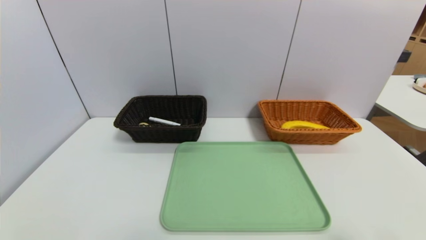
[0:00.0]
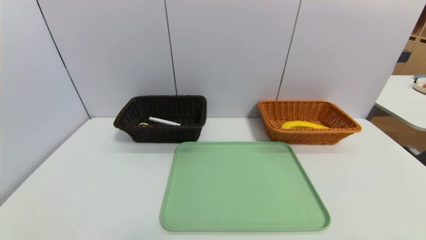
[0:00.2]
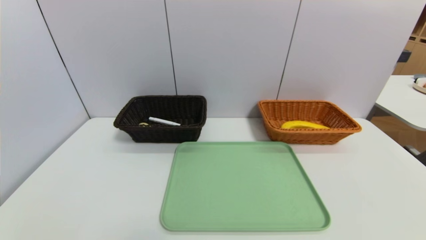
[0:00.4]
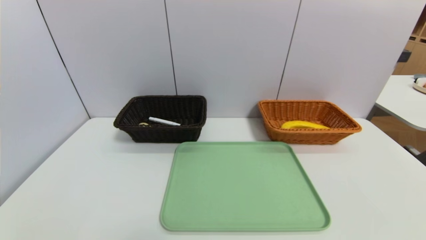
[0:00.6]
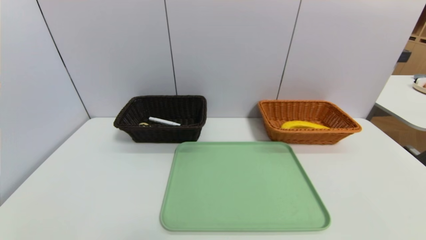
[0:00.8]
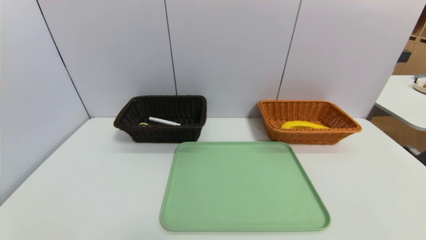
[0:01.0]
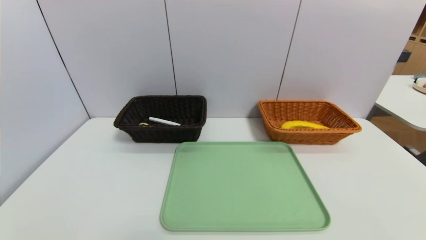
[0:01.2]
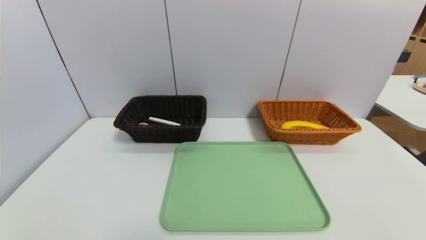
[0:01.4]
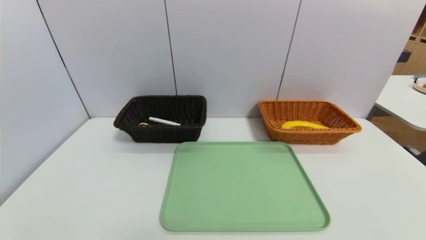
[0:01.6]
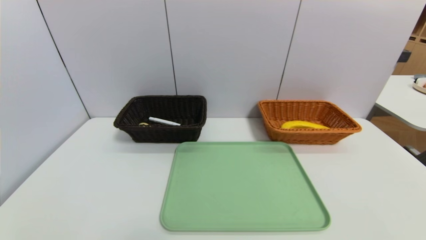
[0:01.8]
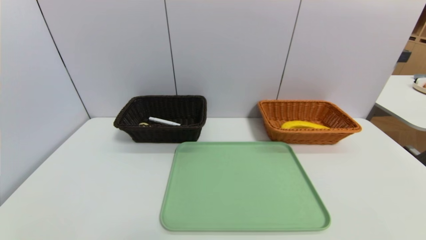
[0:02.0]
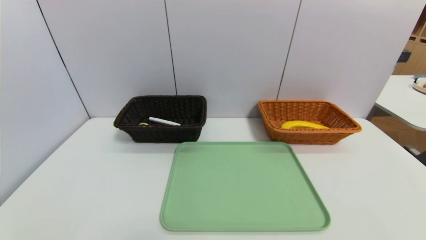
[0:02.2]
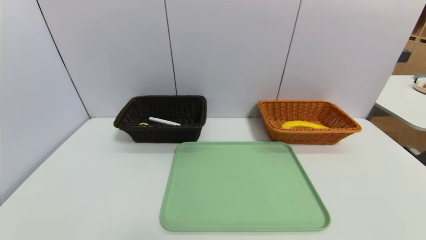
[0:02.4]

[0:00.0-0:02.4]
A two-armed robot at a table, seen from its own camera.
Task of the whole recording: place the food in the right basket with the right gripper, and place the non food items in the left basket with the left gripper.
0:01.2 to 0:02.4: The two grippers keep their place.

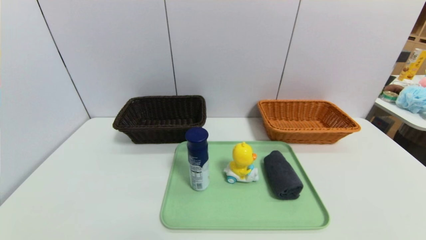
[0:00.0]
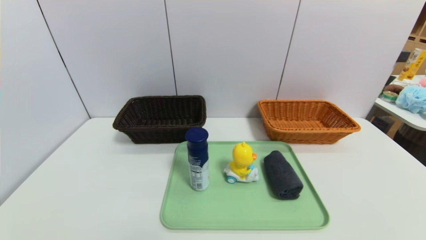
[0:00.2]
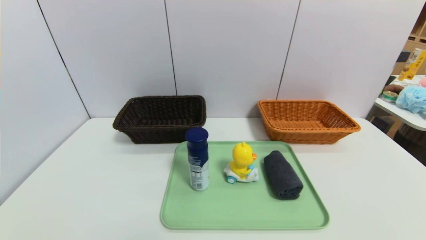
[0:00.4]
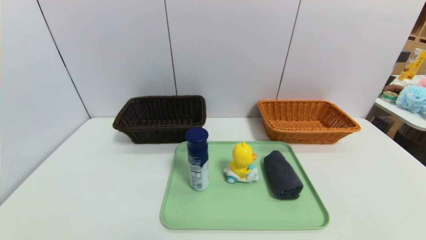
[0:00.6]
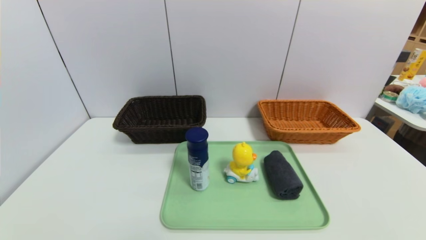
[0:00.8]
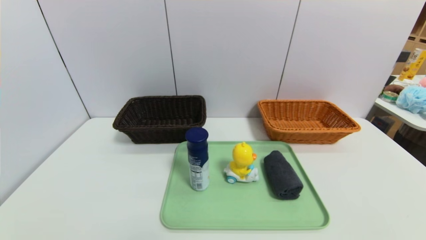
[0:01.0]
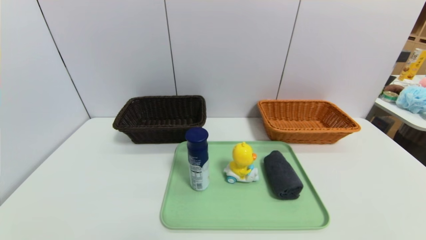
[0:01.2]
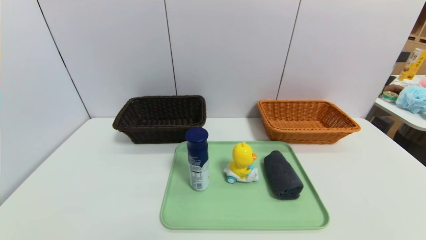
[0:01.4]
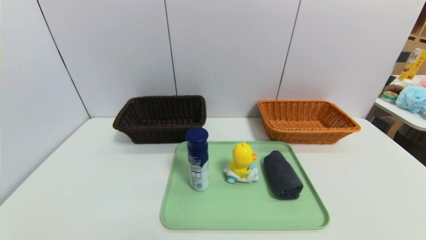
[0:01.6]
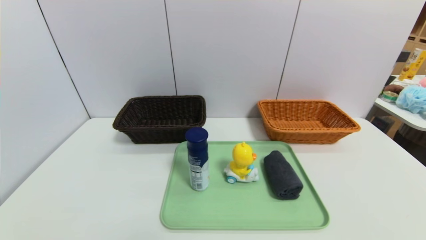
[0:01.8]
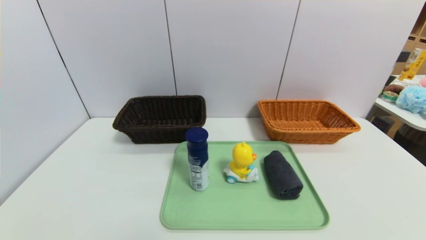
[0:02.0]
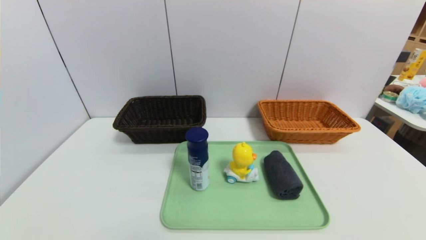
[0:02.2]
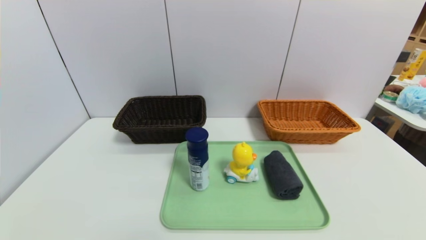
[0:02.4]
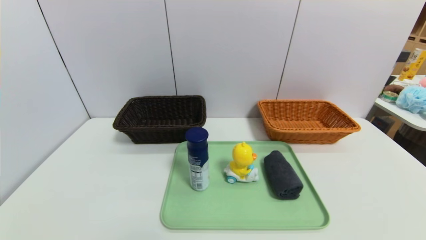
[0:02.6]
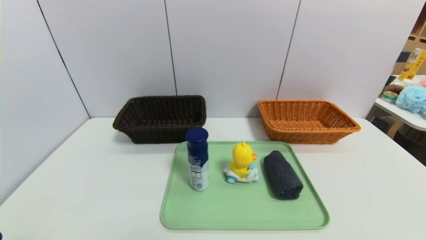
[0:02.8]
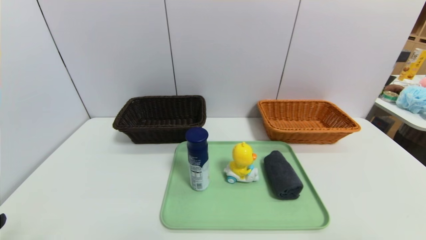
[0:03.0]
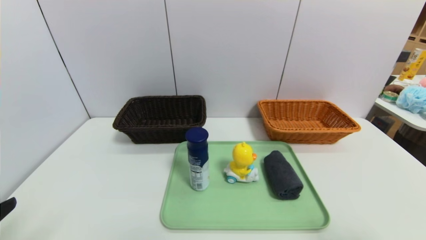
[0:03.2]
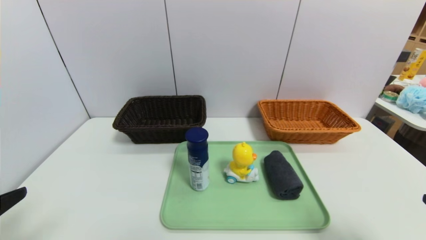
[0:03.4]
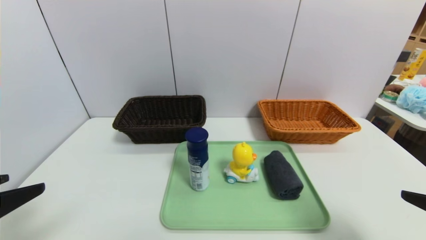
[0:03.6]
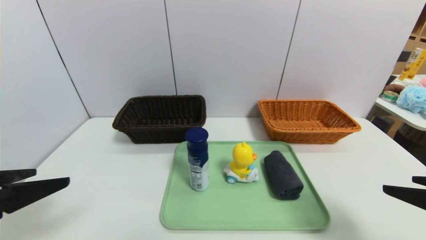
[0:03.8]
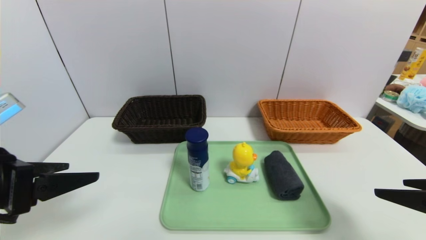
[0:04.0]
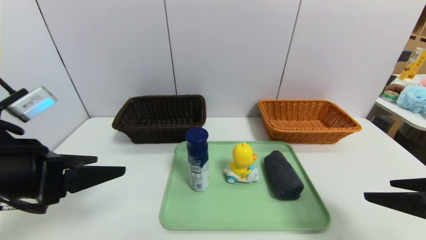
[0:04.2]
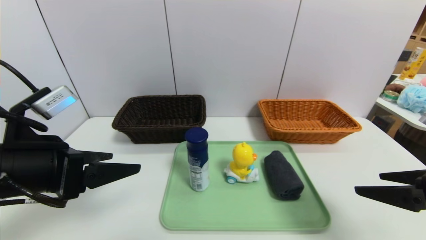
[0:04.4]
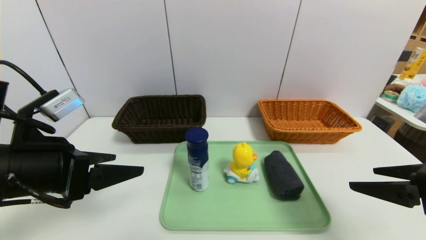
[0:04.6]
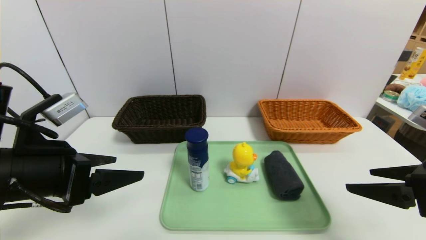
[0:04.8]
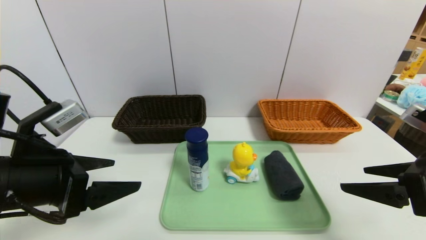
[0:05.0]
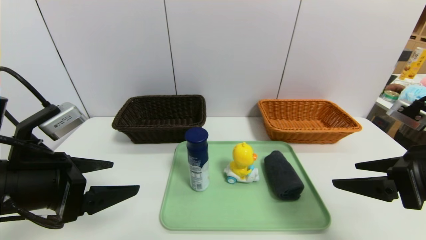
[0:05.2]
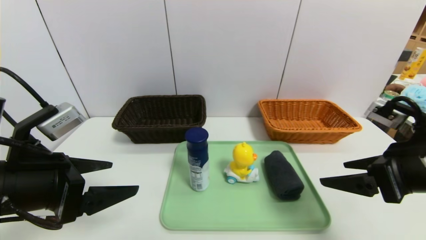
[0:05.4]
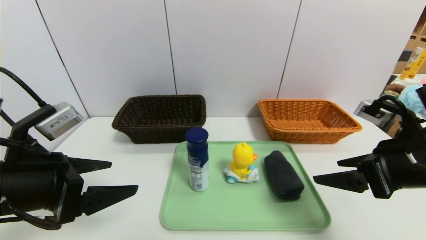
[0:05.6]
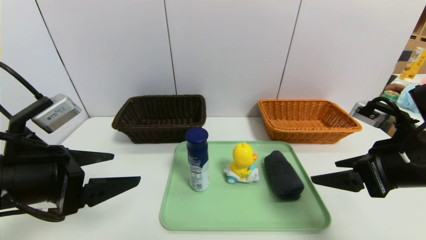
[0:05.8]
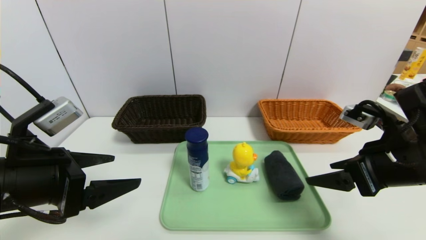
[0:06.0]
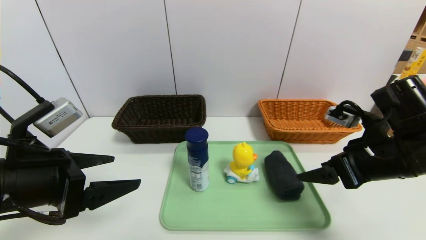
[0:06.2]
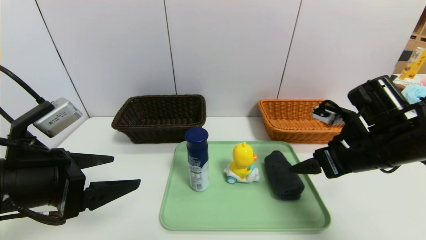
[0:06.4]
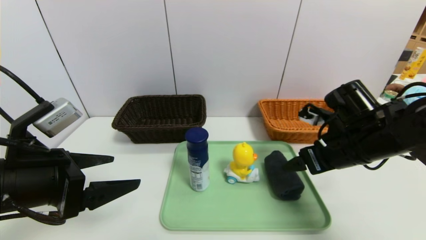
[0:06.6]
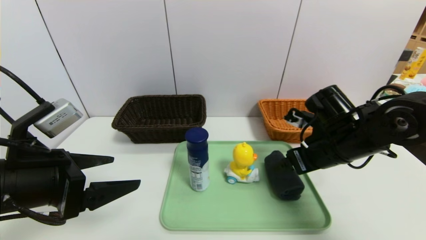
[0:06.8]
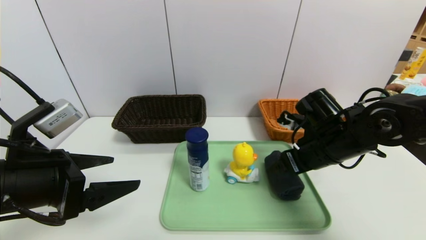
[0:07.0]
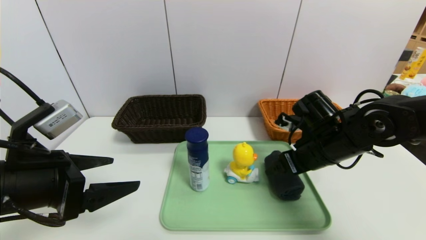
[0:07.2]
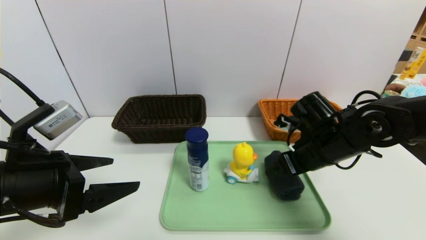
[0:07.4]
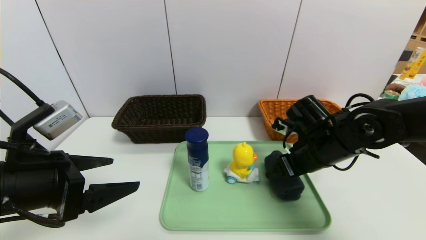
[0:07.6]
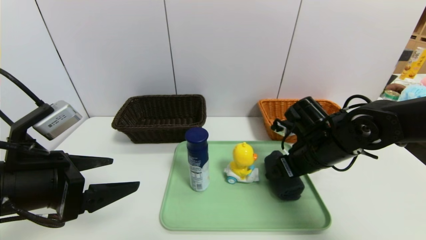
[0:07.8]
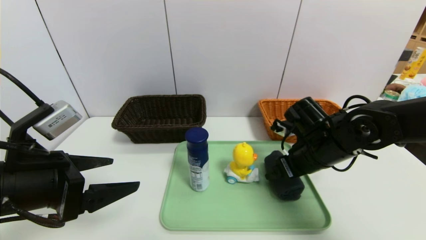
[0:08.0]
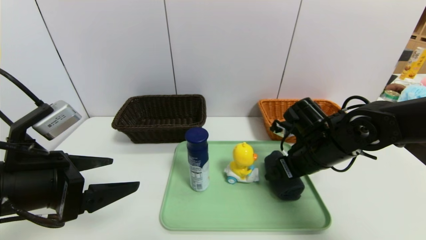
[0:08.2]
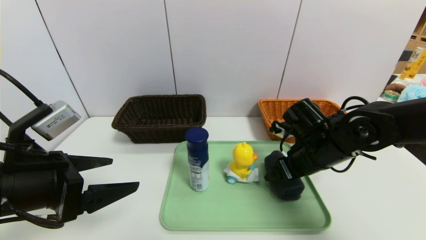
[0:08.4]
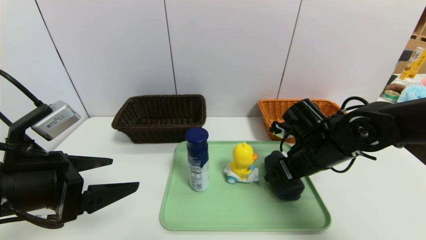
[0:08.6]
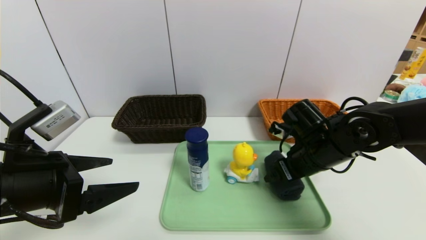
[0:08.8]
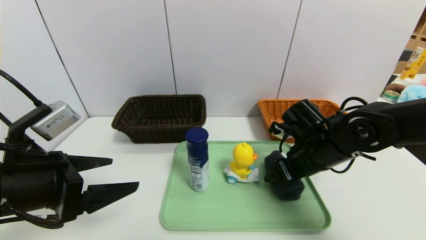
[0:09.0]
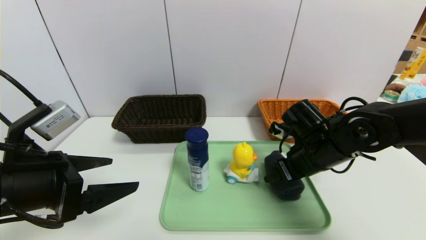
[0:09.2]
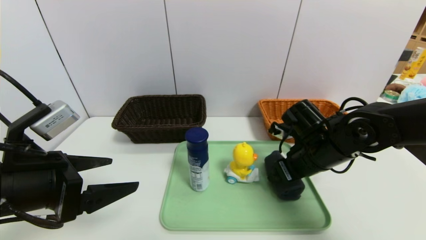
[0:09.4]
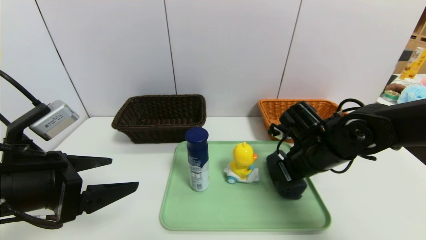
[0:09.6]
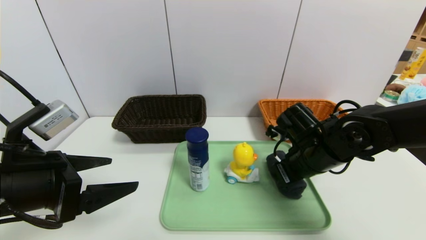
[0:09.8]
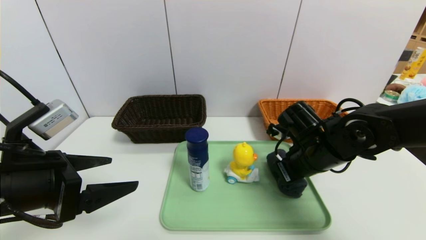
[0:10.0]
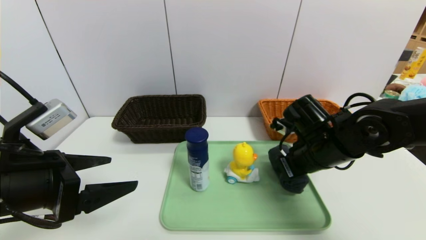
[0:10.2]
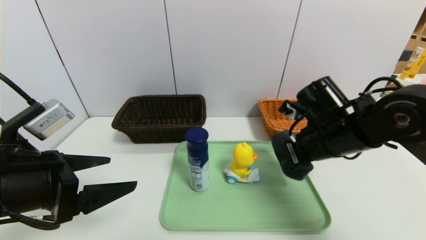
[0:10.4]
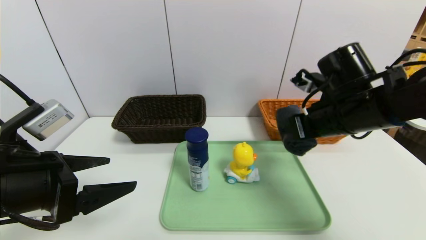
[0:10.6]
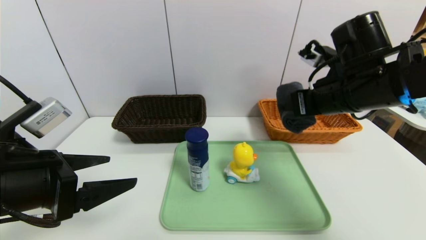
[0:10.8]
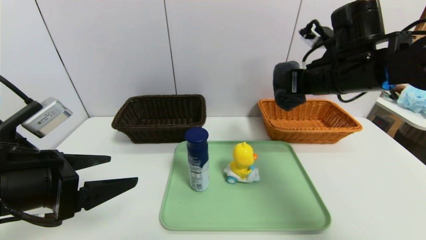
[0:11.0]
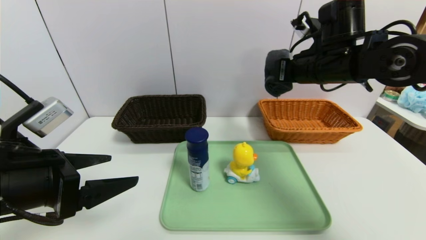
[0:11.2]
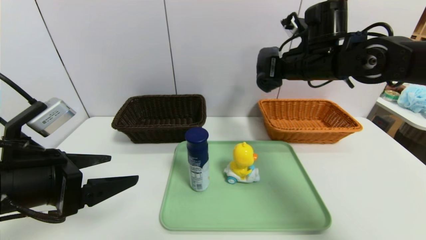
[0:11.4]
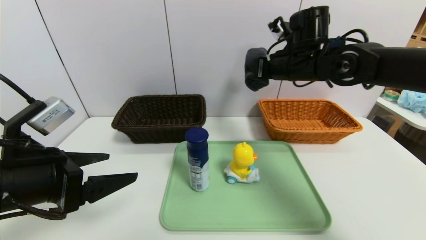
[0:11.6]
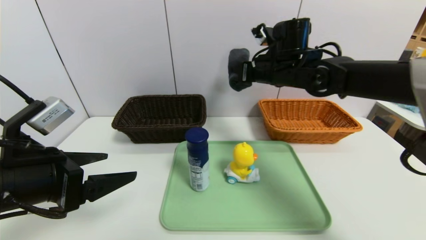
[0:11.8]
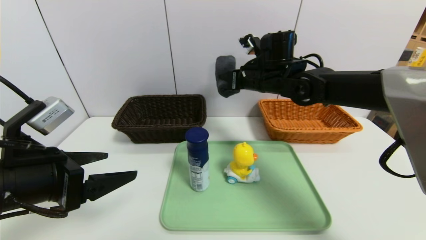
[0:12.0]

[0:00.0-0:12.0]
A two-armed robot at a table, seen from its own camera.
Task of the whole recording: place the food in the right basket with the right gripper, and place the non food items in the left basket with the left gripper.
0:03.0 to 0:04.4: The right gripper moves forward, approximately 10 cm; the left gripper heads forward and to the right, covering about 15 cm, and opens up.
0:04.4 to 0:06.0: The right gripper goes about 5 cm forward.
0:06.0 to 0:07.6: The right gripper goes about 15 cm forward, to the left and downward.
0:07.6 to 0:09.0: Both grippers stay put.
0:09.0 to 0:10.4: The right gripper shifts approximately 5 cm upward, and closes up.
0:10.4 to 0:12.0: The right gripper shifts approximately 15 cm forward and to the left.

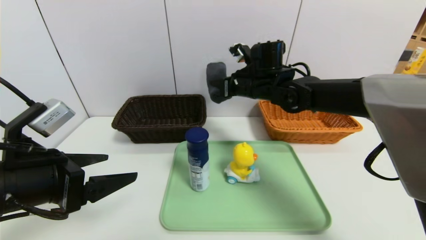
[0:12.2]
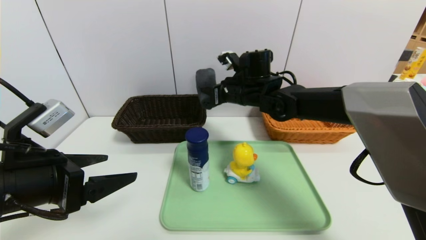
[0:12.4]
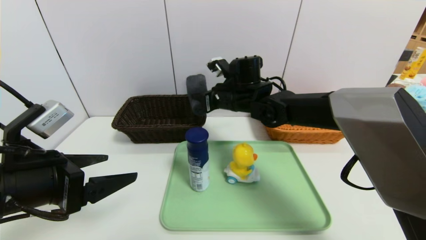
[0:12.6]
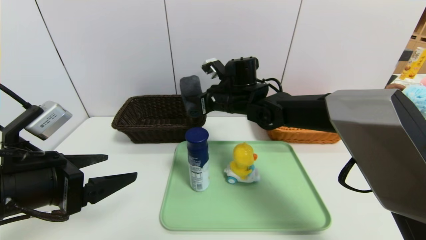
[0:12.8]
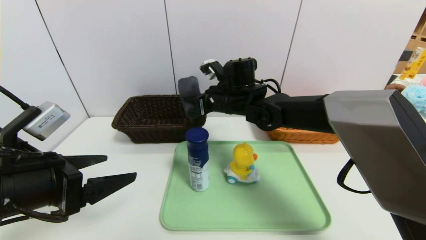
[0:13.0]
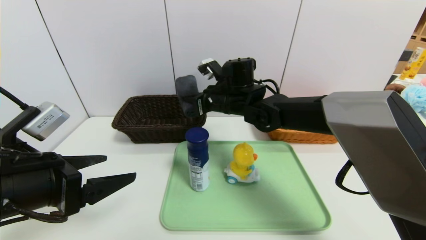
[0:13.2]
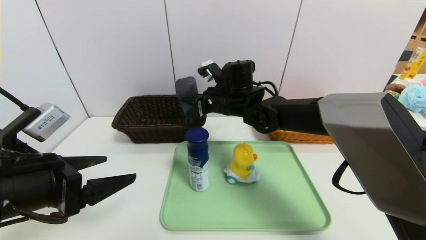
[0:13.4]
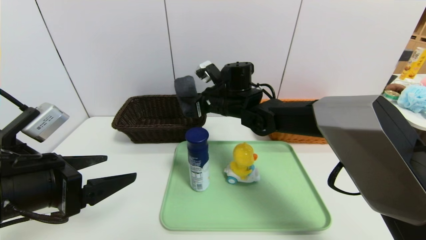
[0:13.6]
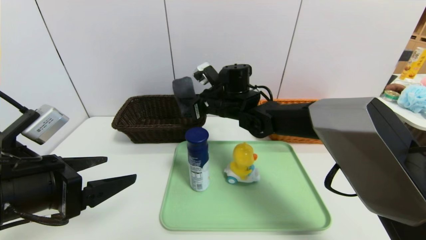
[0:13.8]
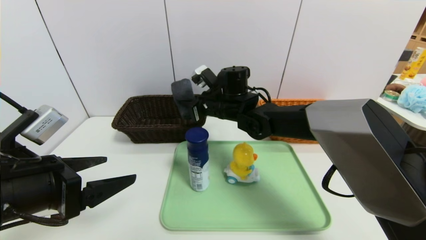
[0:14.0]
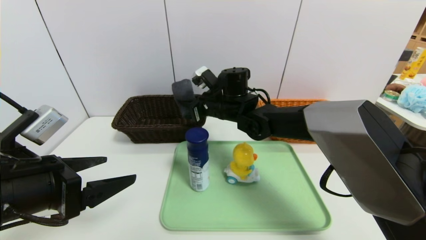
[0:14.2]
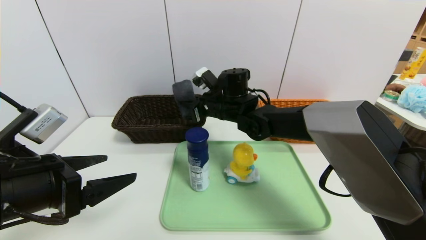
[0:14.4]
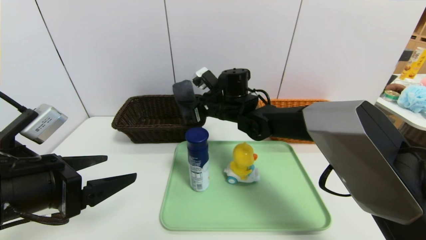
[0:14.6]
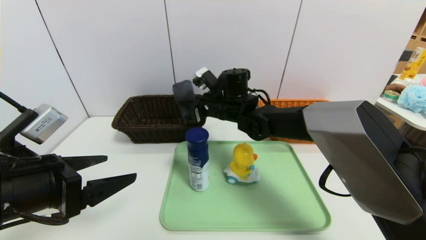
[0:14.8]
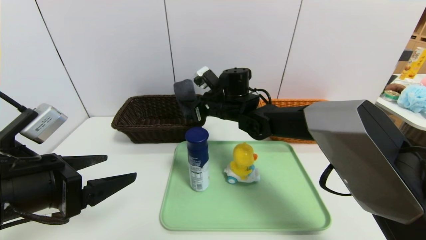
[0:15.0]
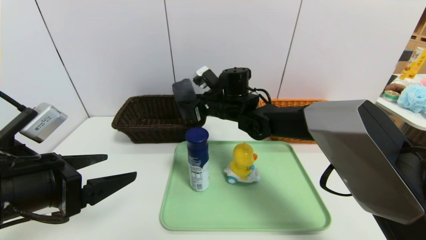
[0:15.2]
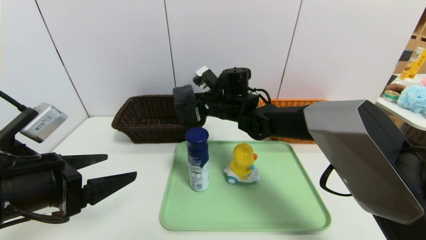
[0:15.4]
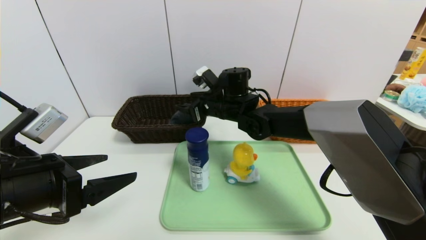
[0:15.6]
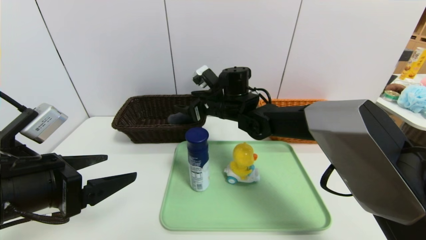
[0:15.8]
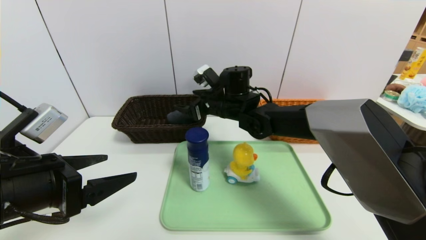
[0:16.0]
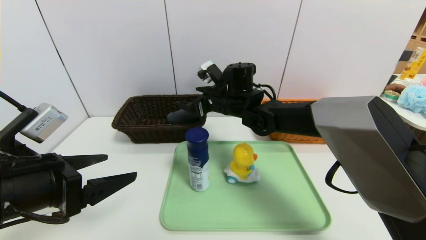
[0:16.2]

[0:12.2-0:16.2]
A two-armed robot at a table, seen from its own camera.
Task of the whole recording: place the food in the right basket with the right gripper, and place the non food items in the left basket with the left gripper.
0:12.2 to 0:13.6: The right gripper is displaced to the left by some 5 cm.
0:13.6 to 0:14.8: There are only small adjustments of the grippers.
0:14.8 to 0:16.2: The right gripper opens its fingers.
